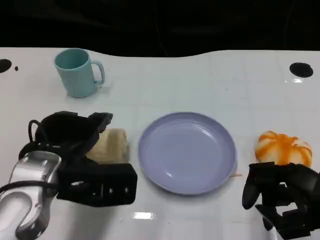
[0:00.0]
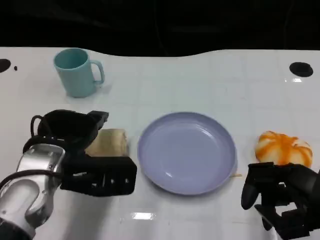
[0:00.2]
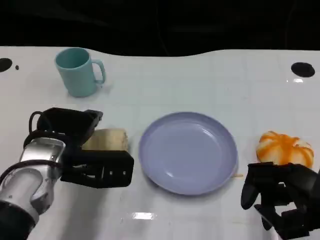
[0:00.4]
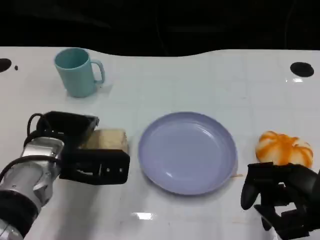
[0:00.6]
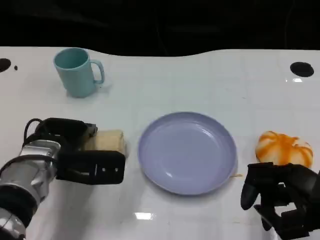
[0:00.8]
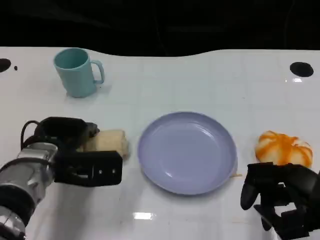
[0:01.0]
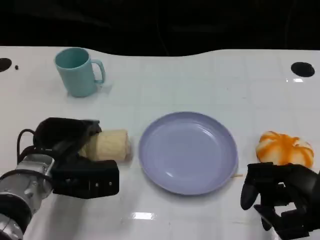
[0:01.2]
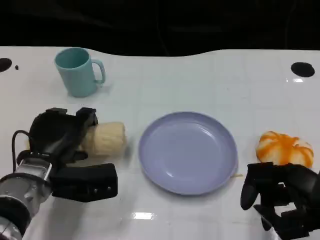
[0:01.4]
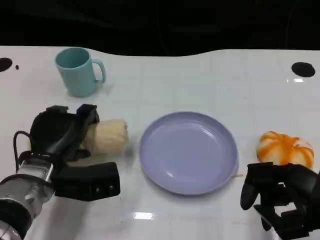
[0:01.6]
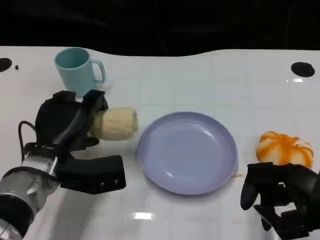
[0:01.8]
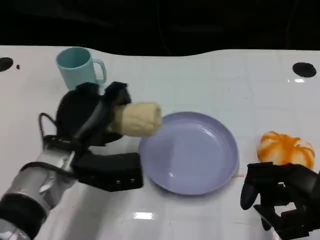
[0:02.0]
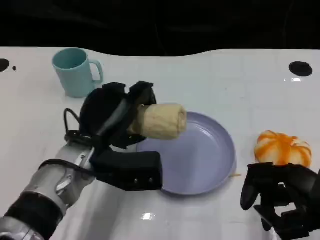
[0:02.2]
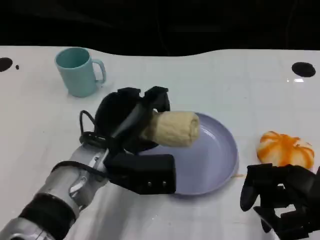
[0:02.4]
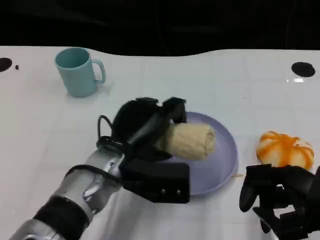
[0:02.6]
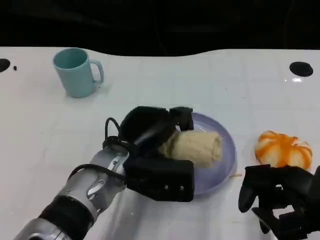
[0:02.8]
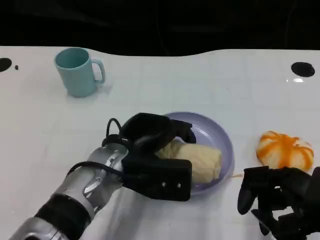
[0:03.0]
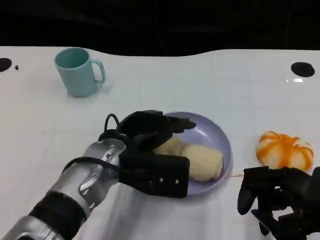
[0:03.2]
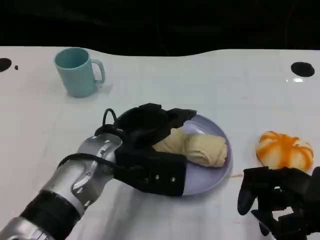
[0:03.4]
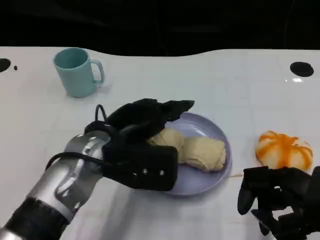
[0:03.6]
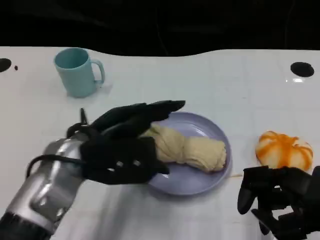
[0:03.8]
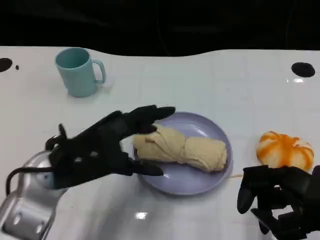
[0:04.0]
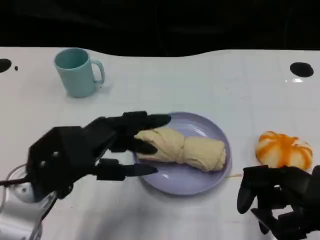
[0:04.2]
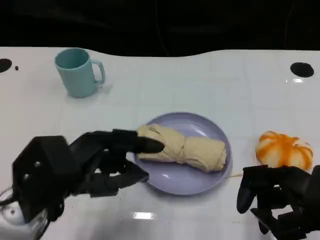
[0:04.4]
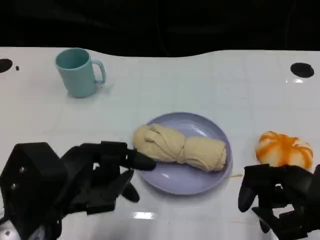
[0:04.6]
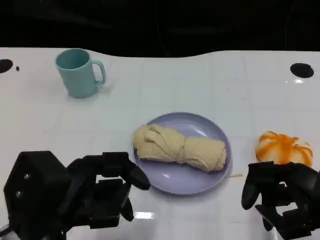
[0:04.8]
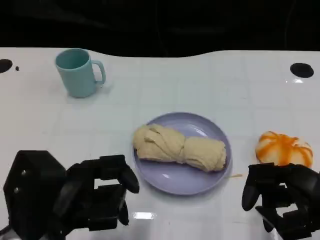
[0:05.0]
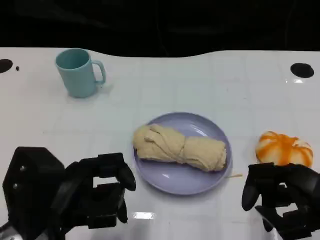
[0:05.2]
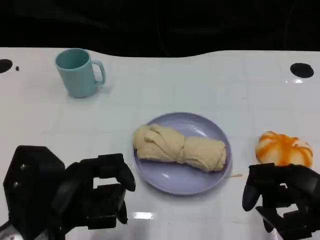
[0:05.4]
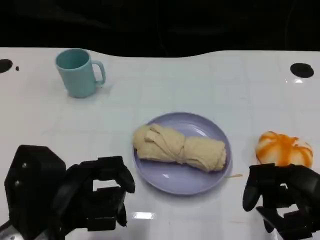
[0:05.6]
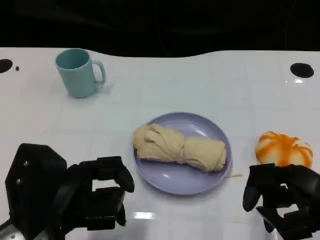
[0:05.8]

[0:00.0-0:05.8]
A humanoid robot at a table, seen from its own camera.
Task of the whole recording: Grasp the towel on the left side of the plate with the left hand and place it into the plate.
0:00.0 to 0:01.4: The left hand travels downward by some 5 cm.
0:01.4 to 0:02.8: The left hand heads to the right, covering about 10 cm.
0:02.8 to 0:04.4: The left hand goes roughly 15 cm to the left and backward.
